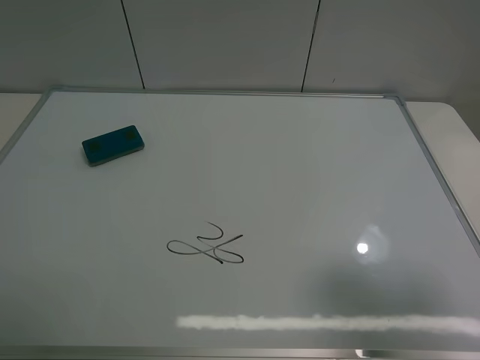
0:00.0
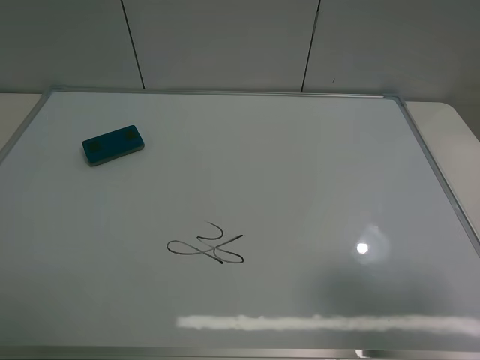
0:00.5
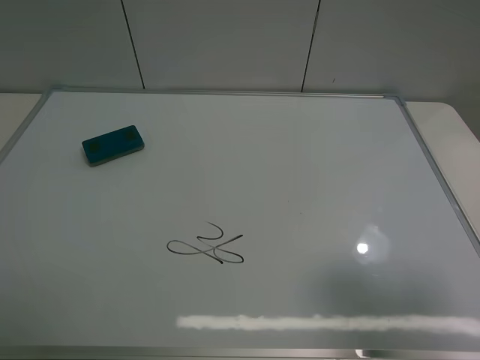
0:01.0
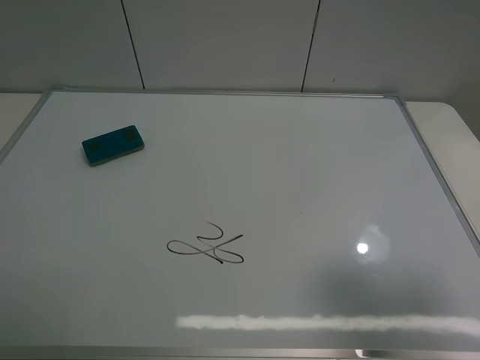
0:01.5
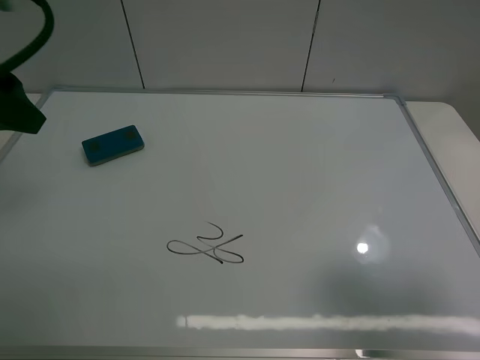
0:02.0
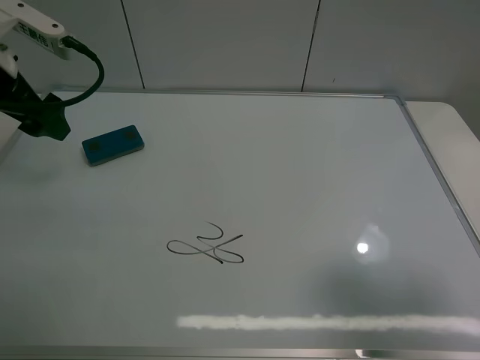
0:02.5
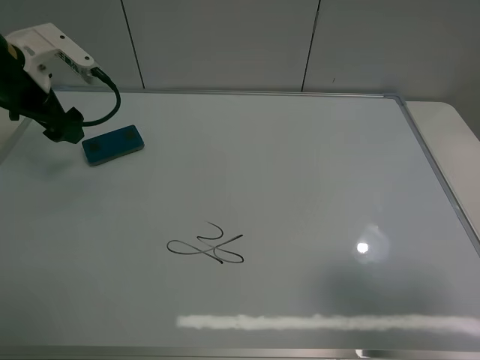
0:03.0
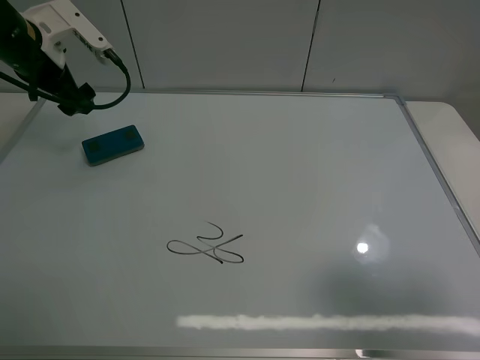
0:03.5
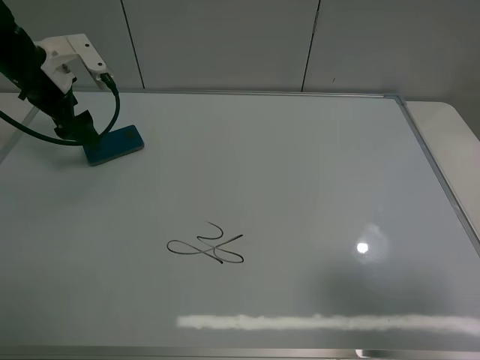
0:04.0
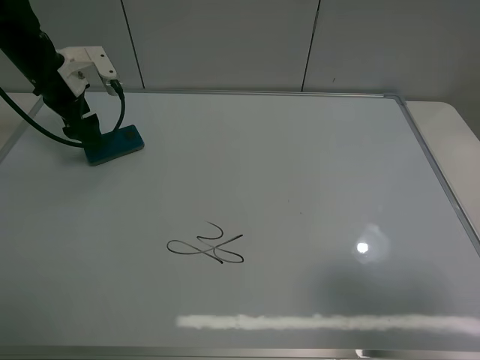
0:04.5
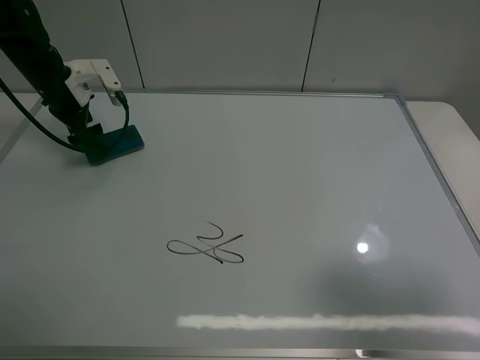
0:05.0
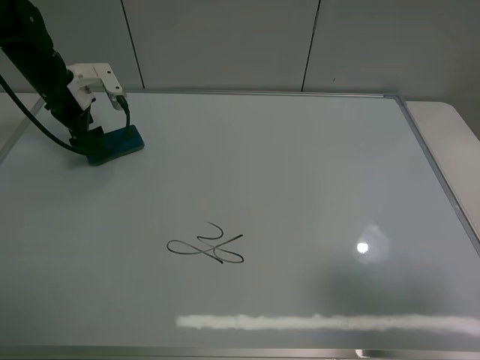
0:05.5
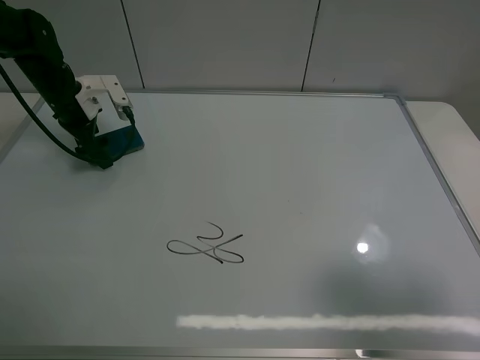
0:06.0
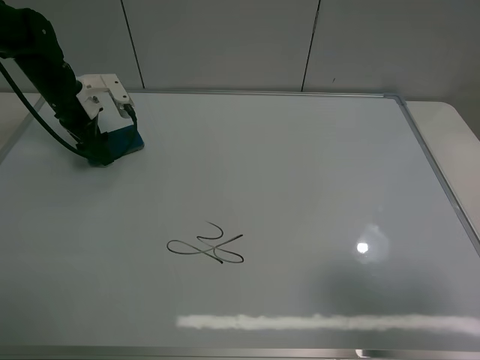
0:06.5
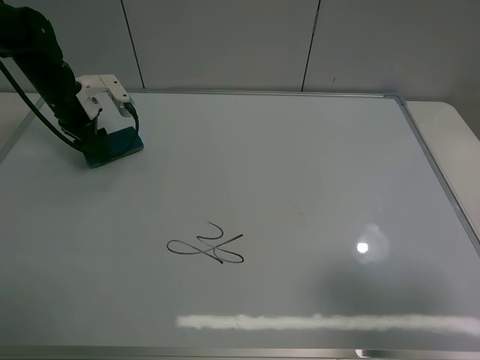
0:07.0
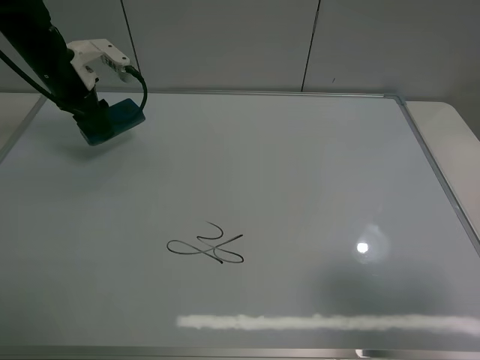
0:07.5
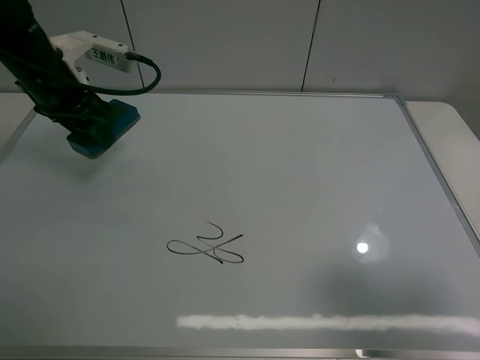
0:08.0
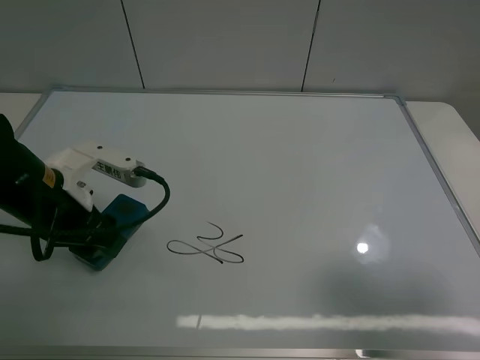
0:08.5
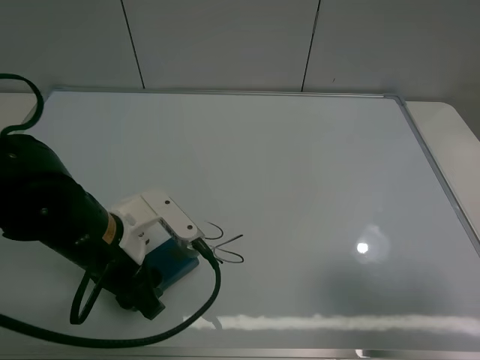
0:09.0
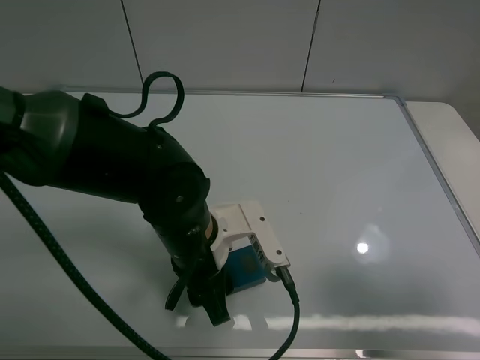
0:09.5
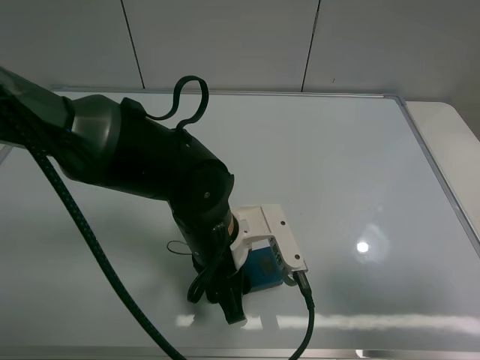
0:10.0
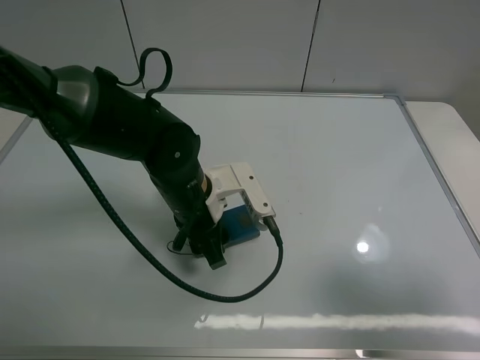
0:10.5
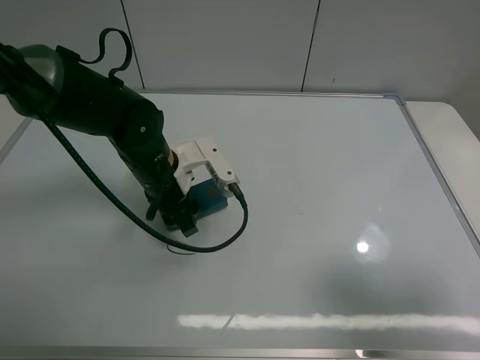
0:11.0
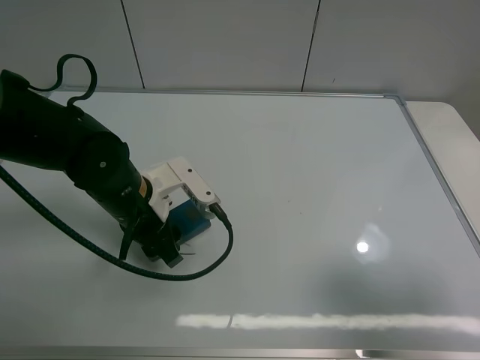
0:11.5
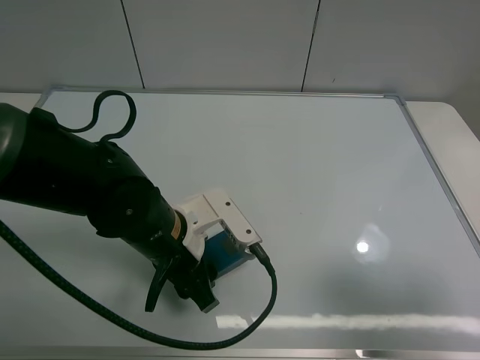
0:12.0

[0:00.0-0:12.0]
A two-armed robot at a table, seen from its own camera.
Task of the whole recording: use the left claw to pick up the whiteboard eraser, wipe the notes on the whiteboard clean, and then put them back in place.
Step, 0:00.0 to 0:06.5: Grasp the eraser with the left gripper.
0:00.0 to 0:02.0: The left gripper moves forward, about 20 cm.
0:02.0 to 0:04.0: The left gripper travels forward and downward by some 20 cm.
0:04.0 to 0:06.0: The left gripper goes some 5 cm downward.
0:06.0 to 0:08.0: The left gripper is displaced backward, upward and to the right by roughly 15 cm, and closes.
0:08.0 to 0:10.0: The left gripper travels to the right, backward and downward by approximately 30 cm.
0:10.0 to 0:12.0: The left gripper travels to the left by some 5 cm.

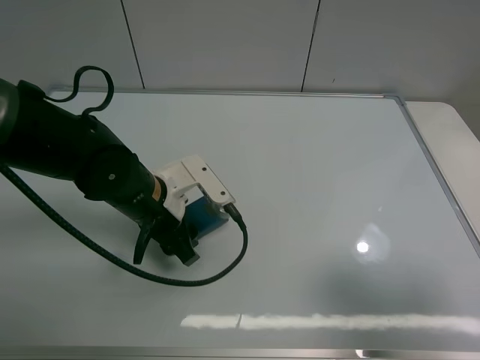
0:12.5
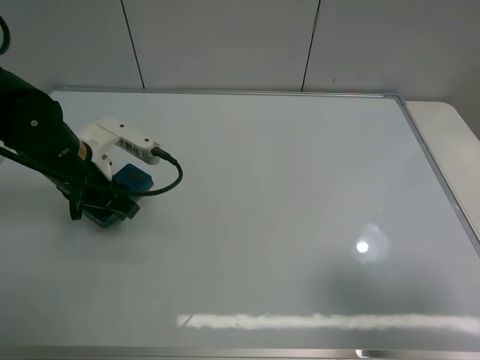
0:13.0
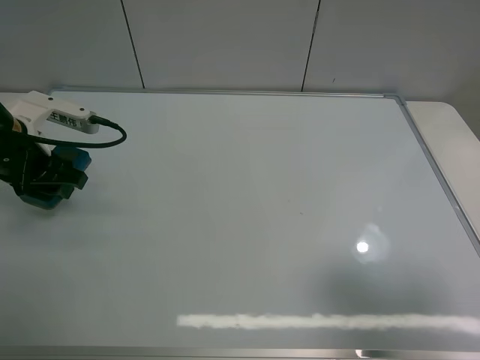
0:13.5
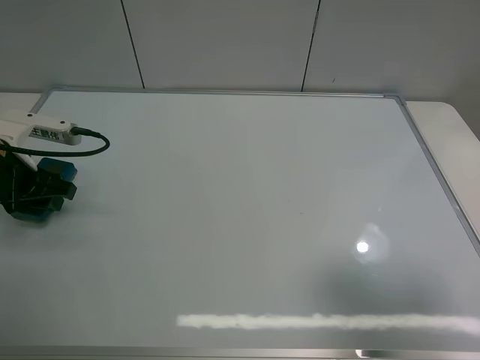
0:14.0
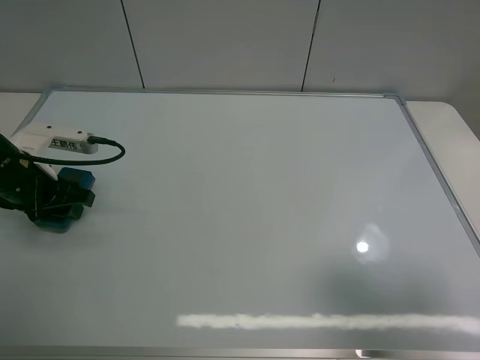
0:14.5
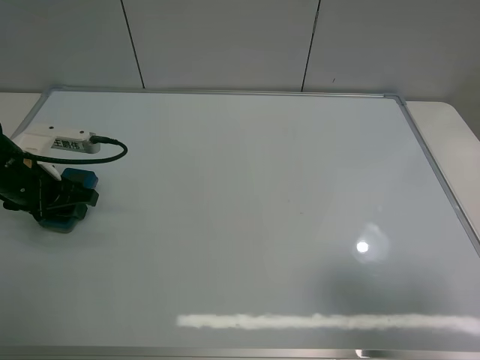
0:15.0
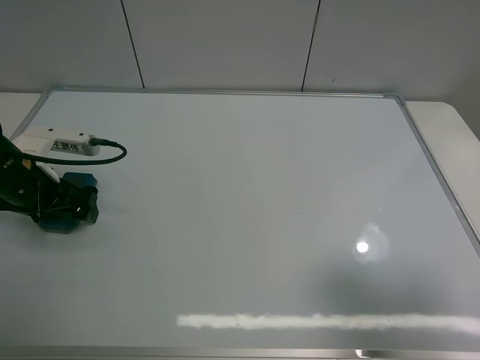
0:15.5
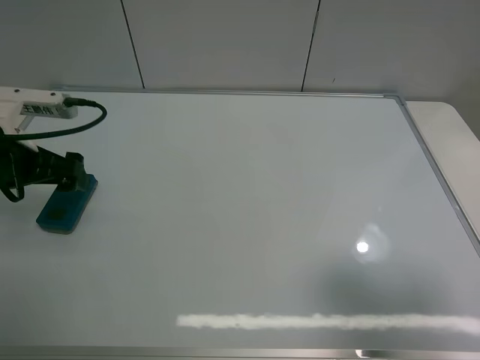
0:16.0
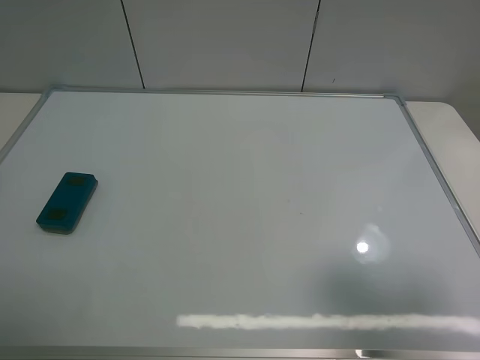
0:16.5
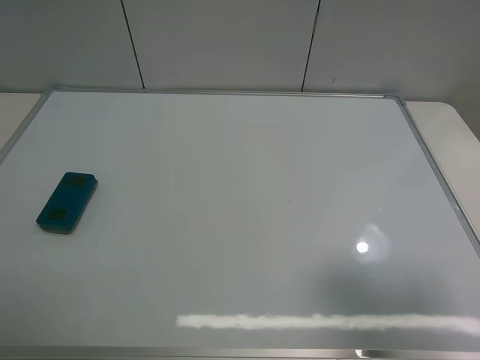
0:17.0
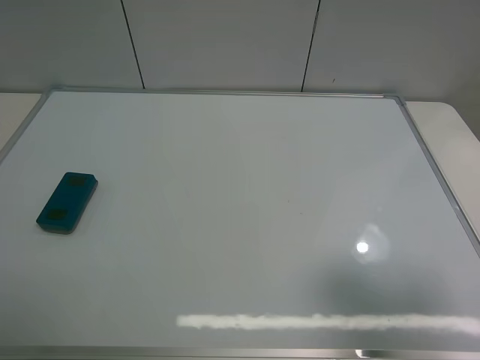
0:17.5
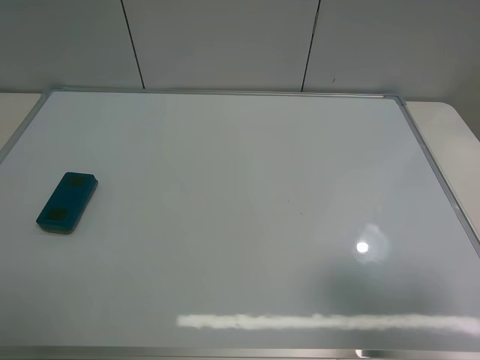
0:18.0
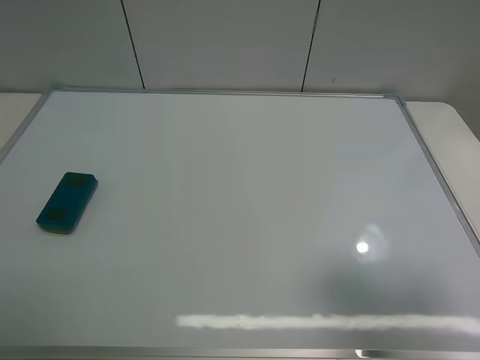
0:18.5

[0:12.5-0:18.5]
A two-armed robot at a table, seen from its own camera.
Task of the whole recording: use the left claw to pick up the whiteboard eraser, wipe the notes on the whiteboard clean, and then put them back in place.
Step, 0:13.0 to 0:15.0: Place the eraser with the left gripper.
0:12.5 to 0:14.5: The left gripper shifts roughly 15 cm to the left.
0:14.5 to 0:16.5: The left gripper shifts some 25 cm upward and backward, and opens up.
